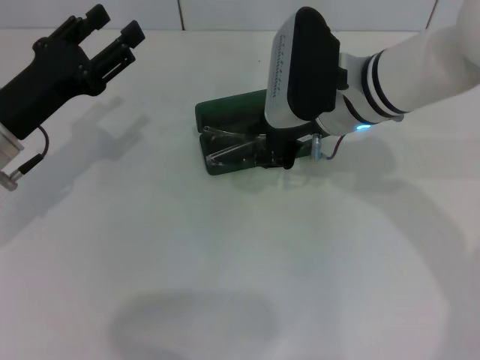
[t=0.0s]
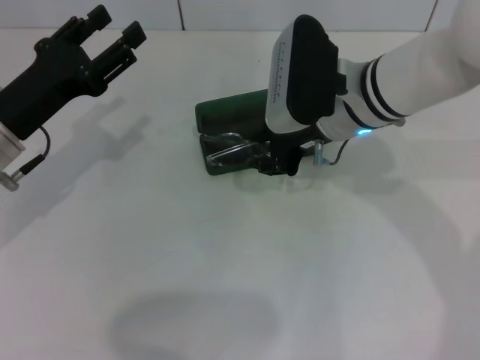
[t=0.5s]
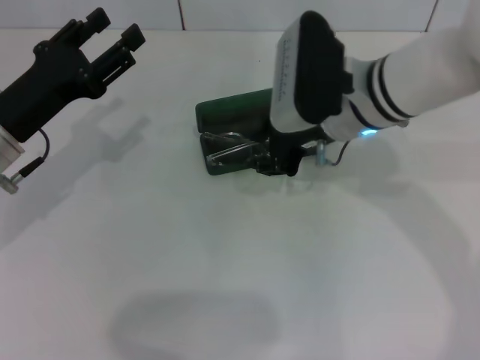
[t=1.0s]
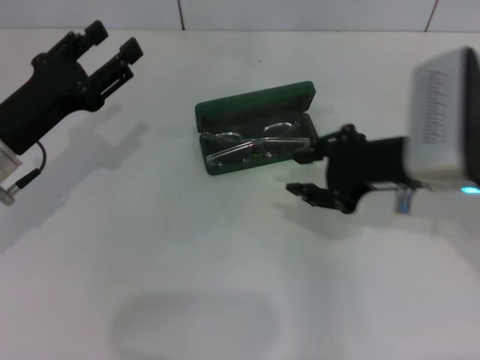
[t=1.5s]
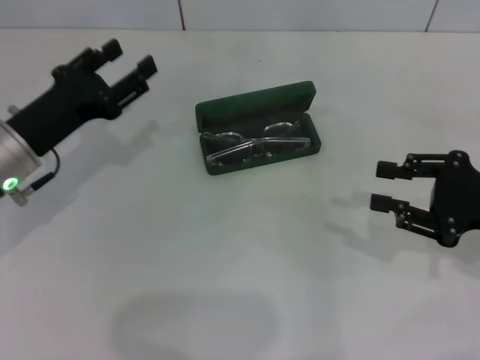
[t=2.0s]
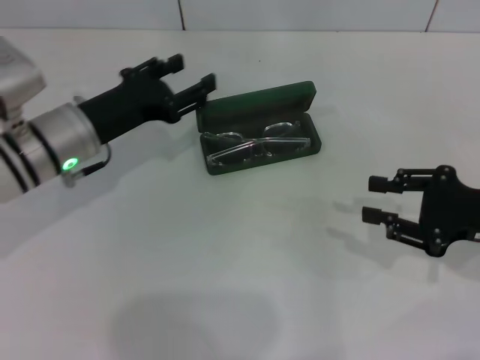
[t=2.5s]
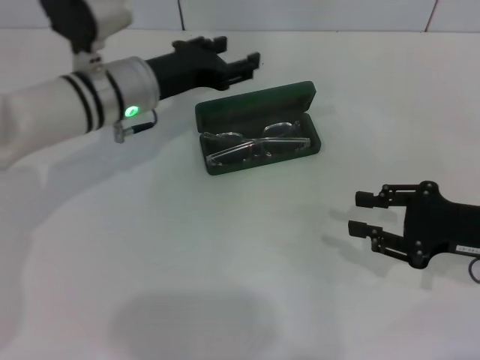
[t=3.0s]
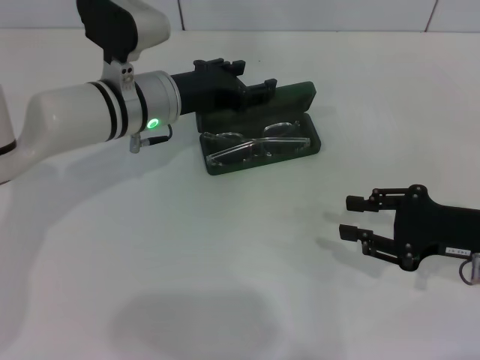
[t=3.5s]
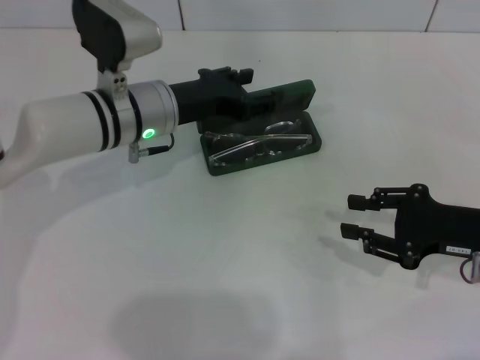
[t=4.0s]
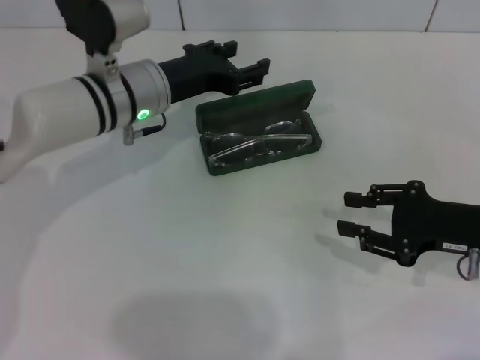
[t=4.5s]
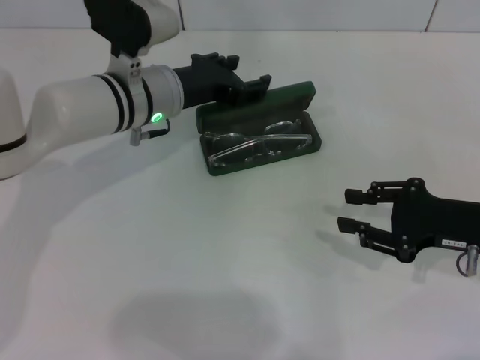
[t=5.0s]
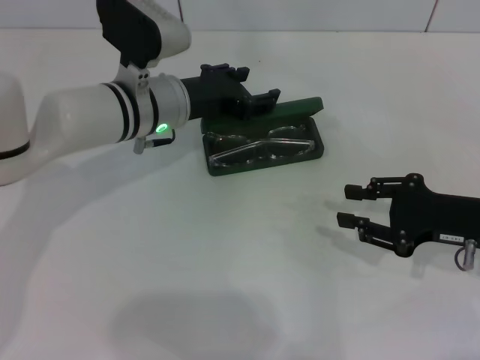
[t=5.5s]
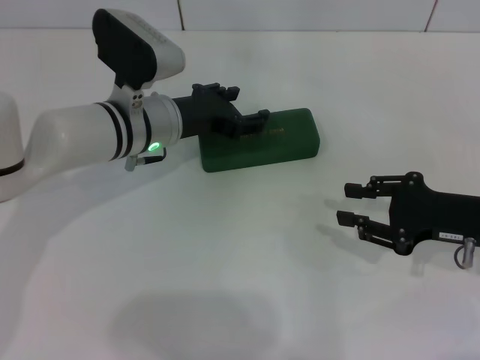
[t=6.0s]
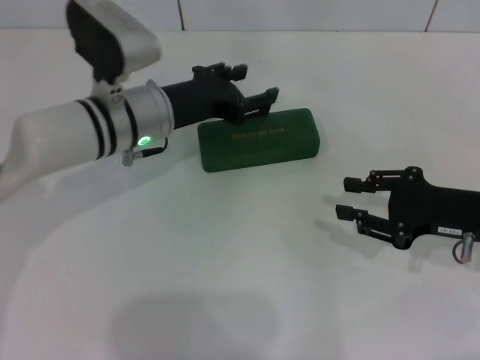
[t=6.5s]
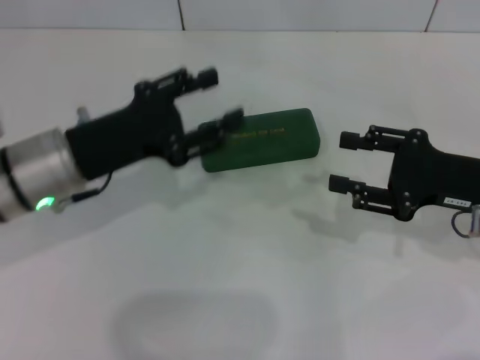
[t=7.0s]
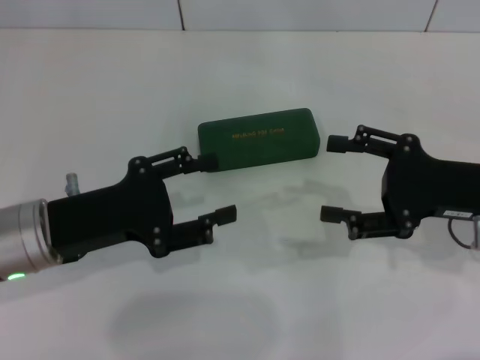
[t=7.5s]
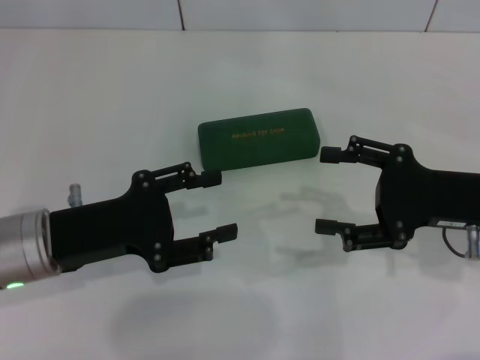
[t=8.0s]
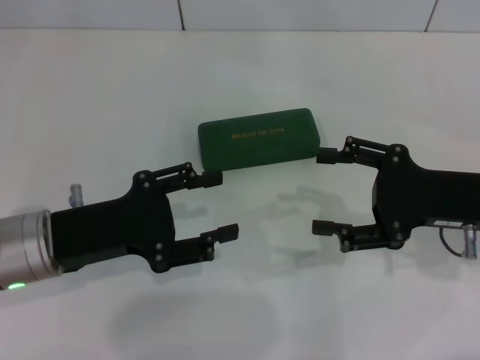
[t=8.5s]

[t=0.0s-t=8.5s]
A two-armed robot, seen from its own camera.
Step, t=1.5s to t=6.0s: Close the glasses case with your left hand.
t=0.0s to t=2.0s: The right gripper travels to the right and backward by approximately 25 cm.
t=2.0s to t=4.0s: The left gripper moves to the right and forward, some 15 cm.
t=4.0s to t=6.5s: There are only small adjustments of the grippers.
t=6.5s to t=8.5s: The right gripper opens up. The left gripper is displaced backward and to the left by roughly 15 cm.

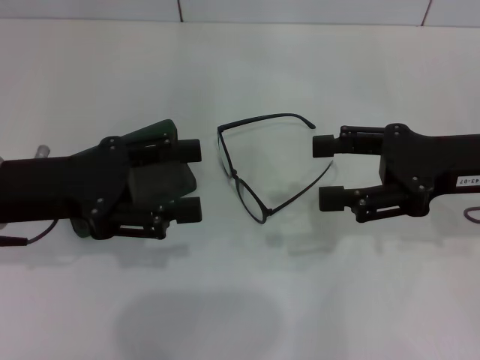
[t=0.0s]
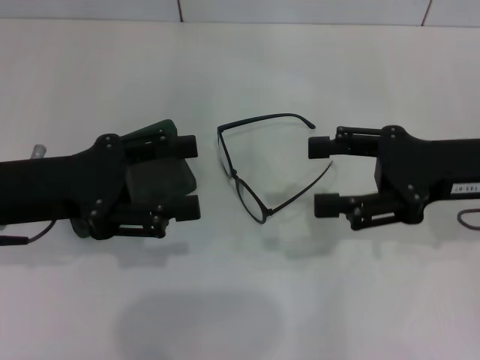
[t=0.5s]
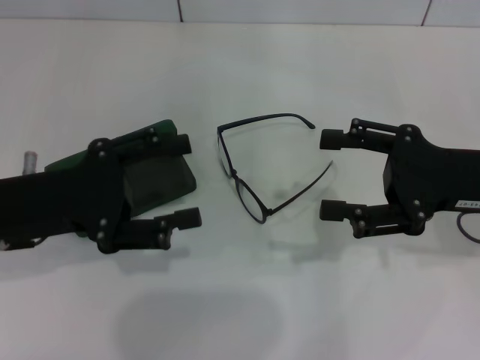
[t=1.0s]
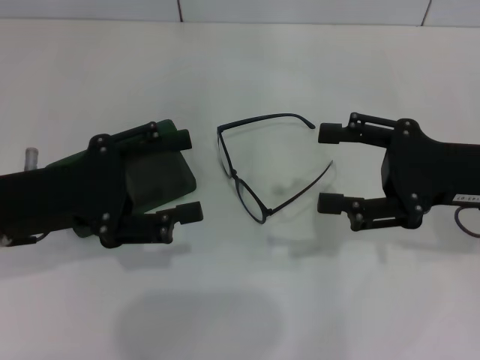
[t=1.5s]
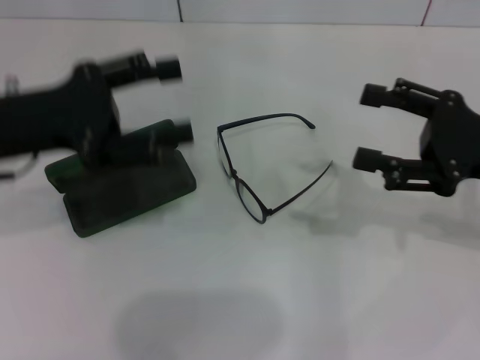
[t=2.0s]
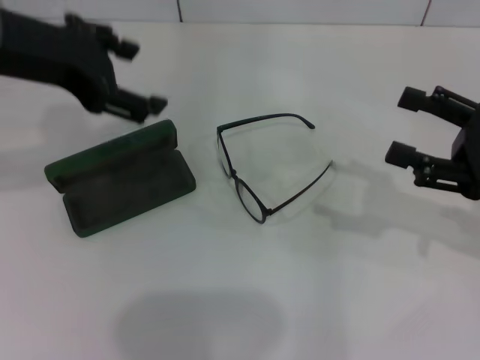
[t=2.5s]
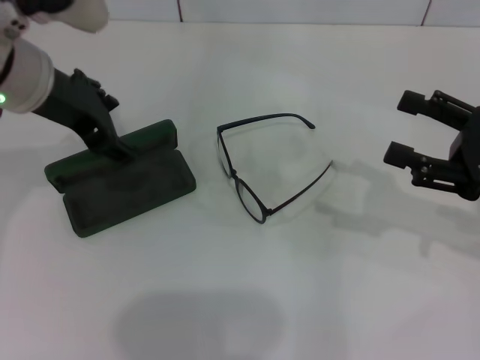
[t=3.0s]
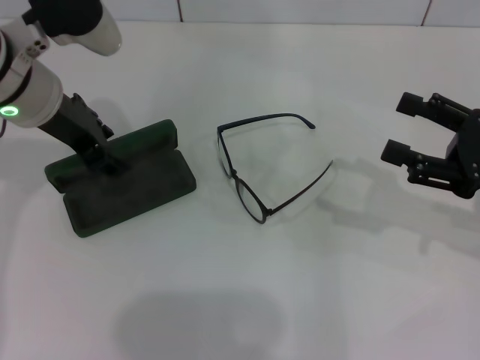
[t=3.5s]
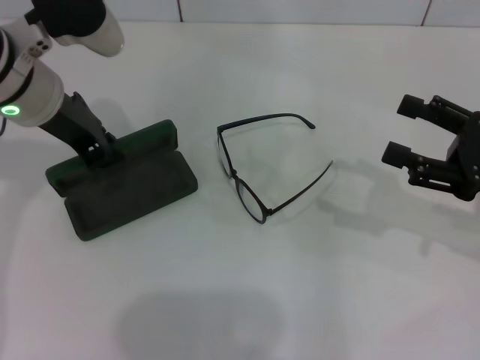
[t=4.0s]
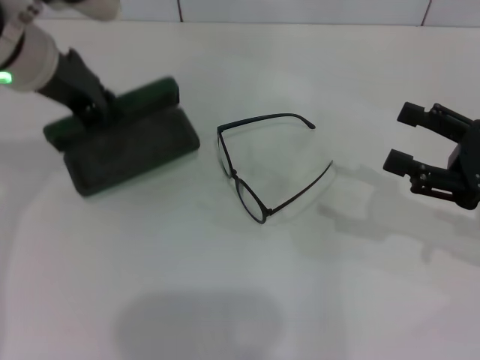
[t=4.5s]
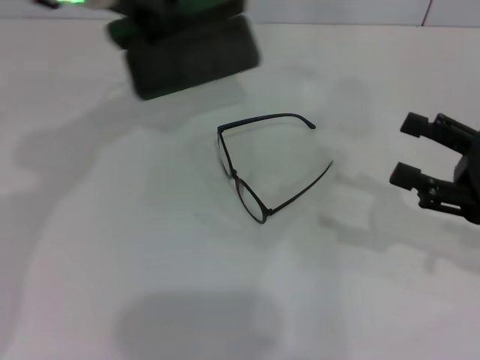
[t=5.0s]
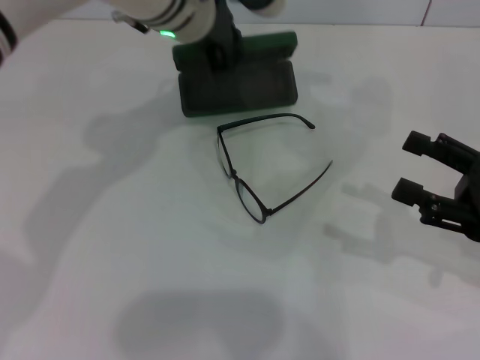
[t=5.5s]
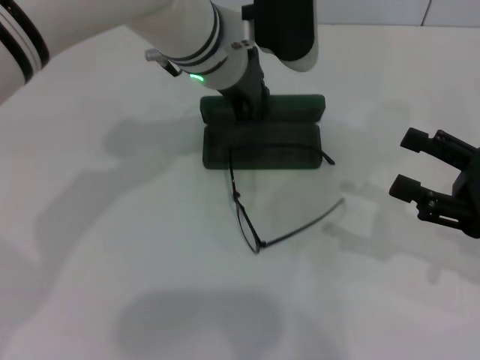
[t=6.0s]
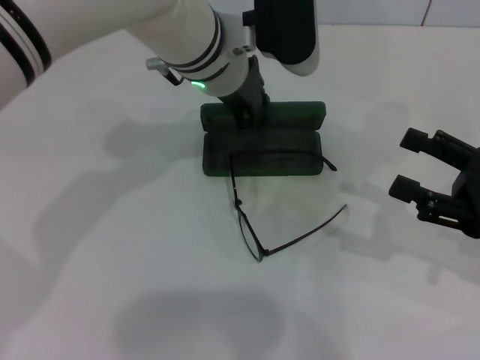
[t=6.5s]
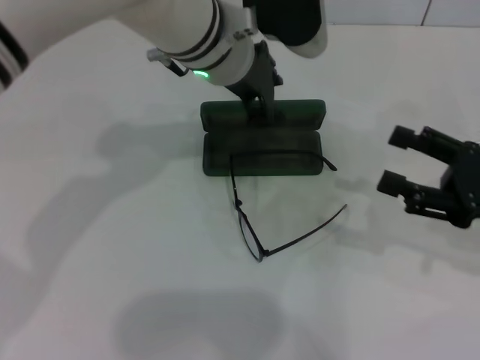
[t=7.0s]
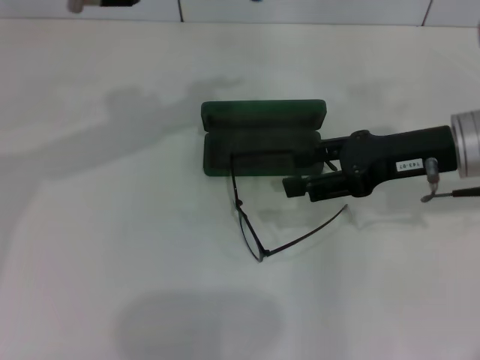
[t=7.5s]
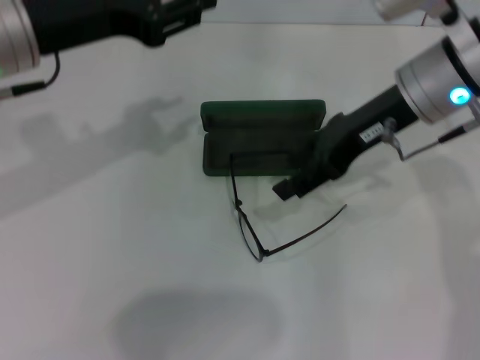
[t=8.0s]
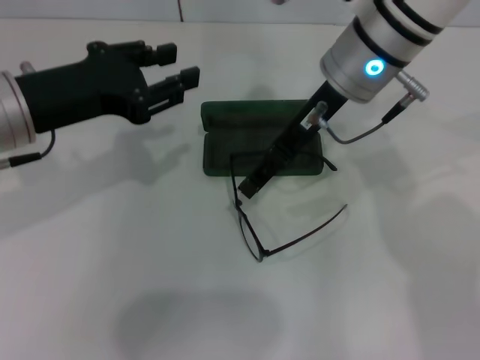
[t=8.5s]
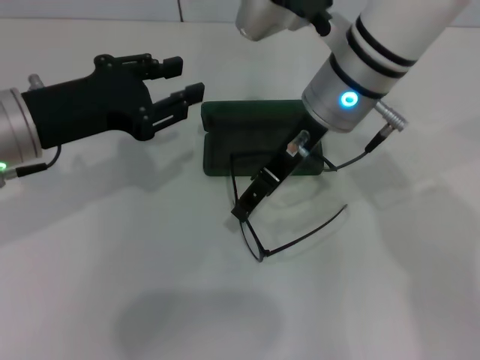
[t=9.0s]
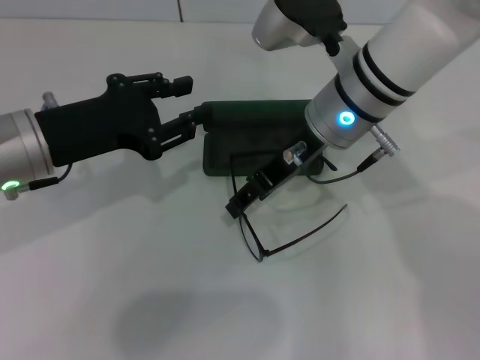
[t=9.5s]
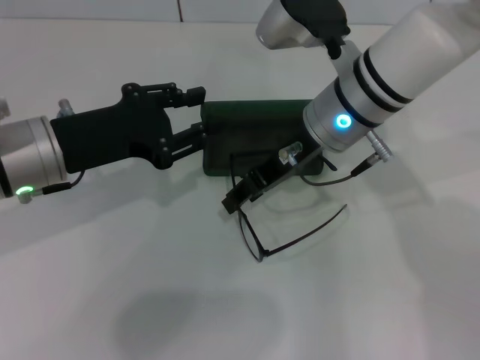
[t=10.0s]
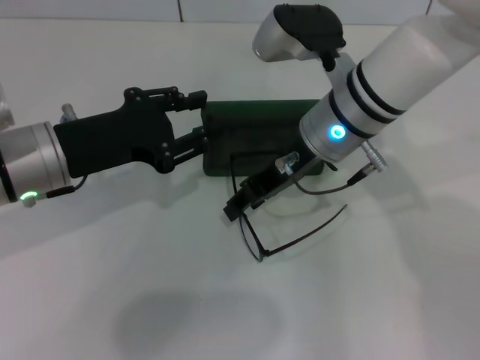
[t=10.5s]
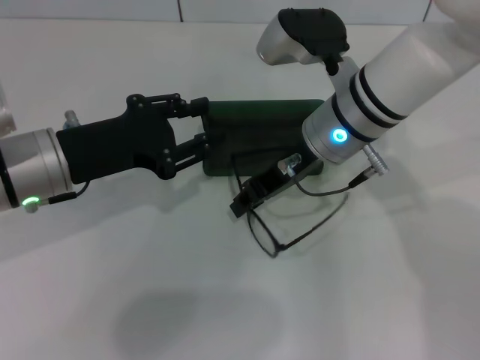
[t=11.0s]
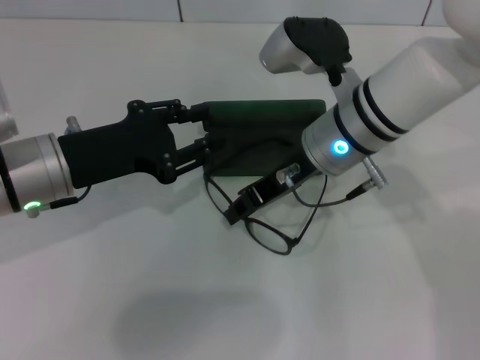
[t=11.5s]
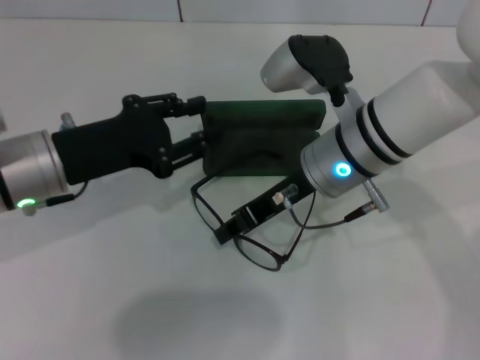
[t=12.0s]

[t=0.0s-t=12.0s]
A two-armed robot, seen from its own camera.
Step, t=0.0s to t=4.0s: Grab the glasses case with your left hand.
Step, t=4.5s to t=6.5s: Place the glasses case in the center of the table with your left hand.
t=2.0s to t=4.0s: The left gripper shifts some 10 cm forward and to the right, reaches roughly 10 cm upward, then returns, and closes up.
t=4.0s to t=6.0s: The left gripper moves to the right, some 15 cm.
t=6.0s to t=8.0s: The left gripper travels to the left and backward by about 20 cm. The right gripper is displaced to the left, forward and upward by some 25 cm.
t=8.0s to t=10.0s: The left gripper is displaced downward by approximately 10 cm. The right gripper travels to the left by approximately 10 cm.

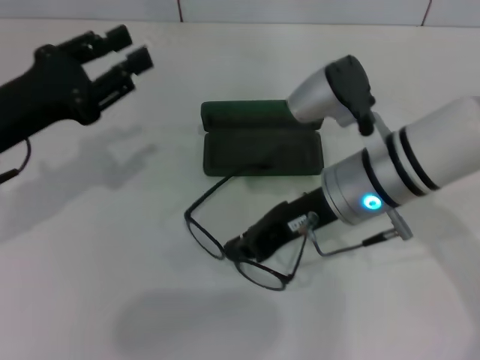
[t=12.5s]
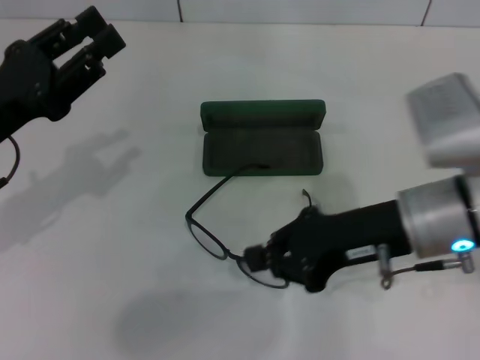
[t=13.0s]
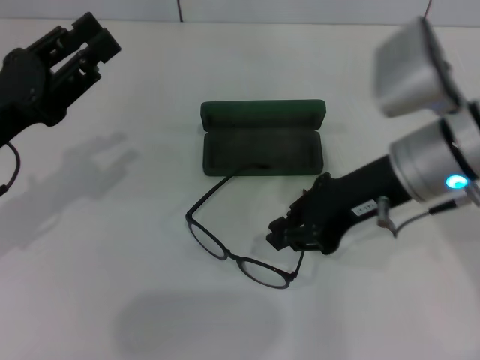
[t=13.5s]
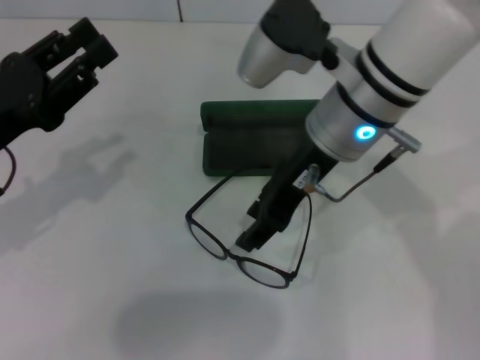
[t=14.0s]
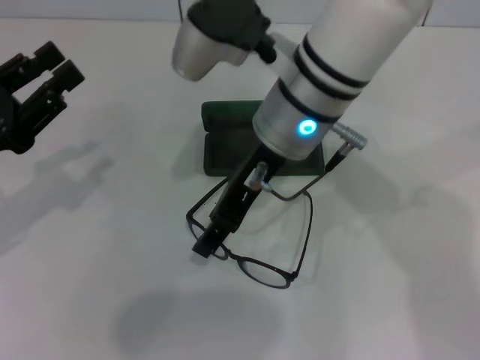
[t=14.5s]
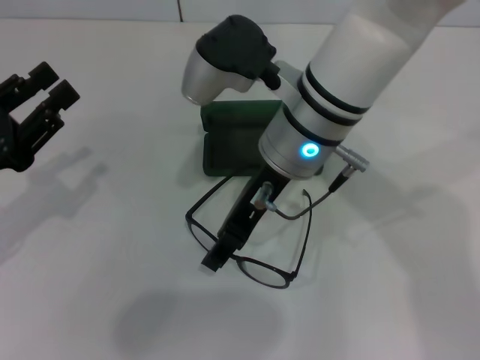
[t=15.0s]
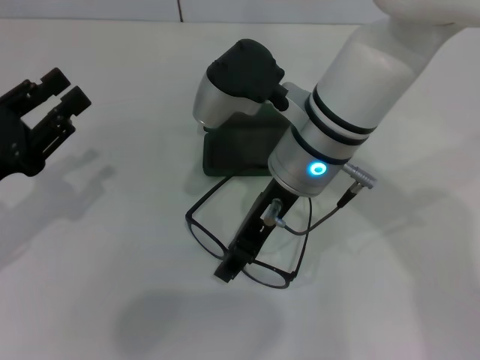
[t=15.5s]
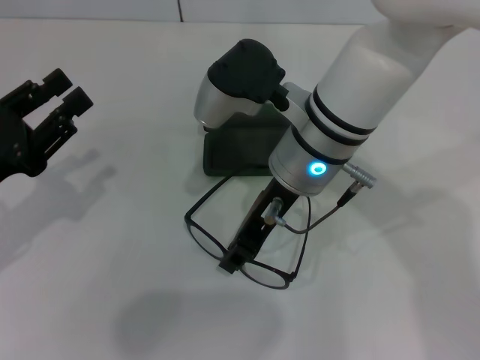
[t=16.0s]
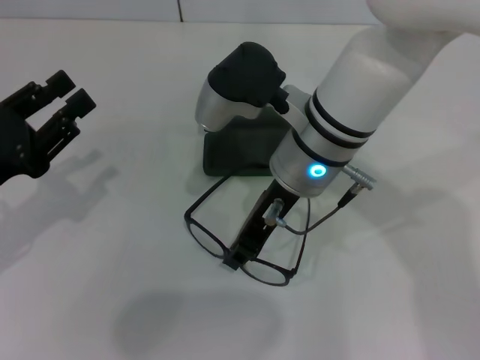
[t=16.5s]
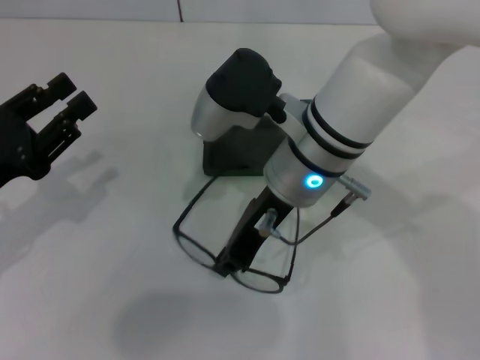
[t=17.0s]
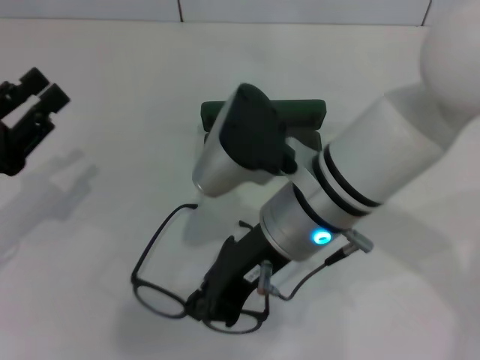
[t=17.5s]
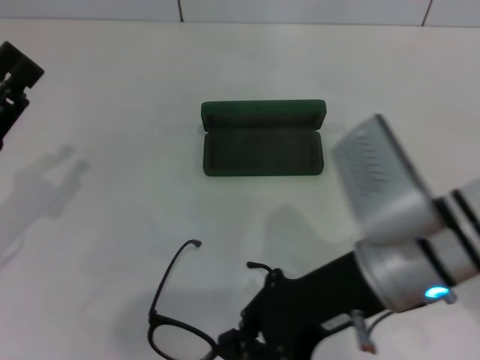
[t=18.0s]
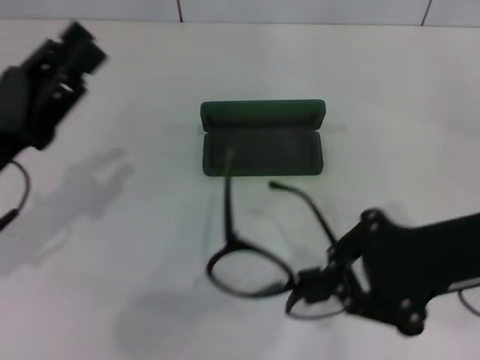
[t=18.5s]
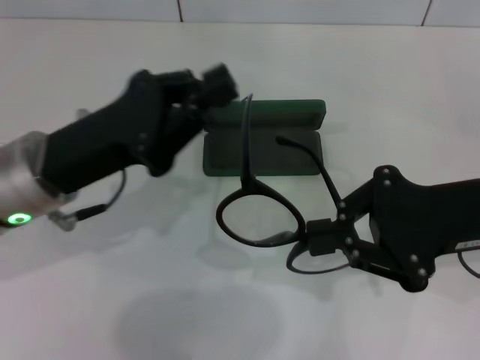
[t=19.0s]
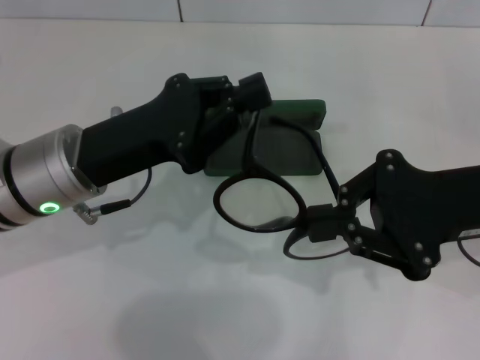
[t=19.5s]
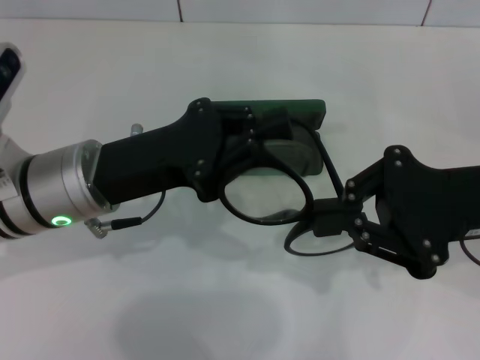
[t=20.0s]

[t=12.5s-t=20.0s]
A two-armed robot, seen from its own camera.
Step, t=12.5s to t=16.0s: Grab the eyeglass frame with your right hand.
t=12.5s to t=14.5s: The left gripper shifts by some 5 cm, while the right gripper moves to the left and upward, approximately 10 cm, and opens.
t=14.5s to t=16.5s: The right gripper closes up.
t=16.5s to t=18.0s: The right gripper moves backward and to the right, about 15 cm.
t=18.0s to t=20.0s: The left gripper travels to the right and forward by roughly 15 cm, and closes up. The right gripper shifts approximately 10 cm to the right.
